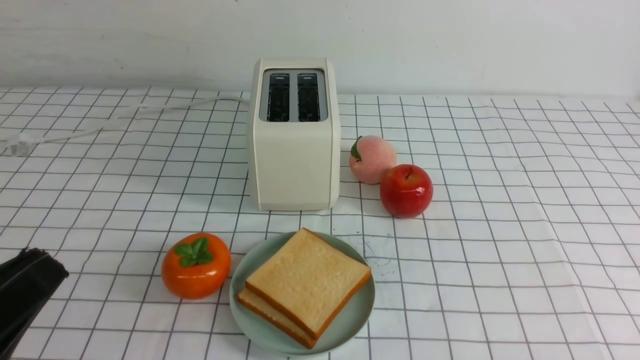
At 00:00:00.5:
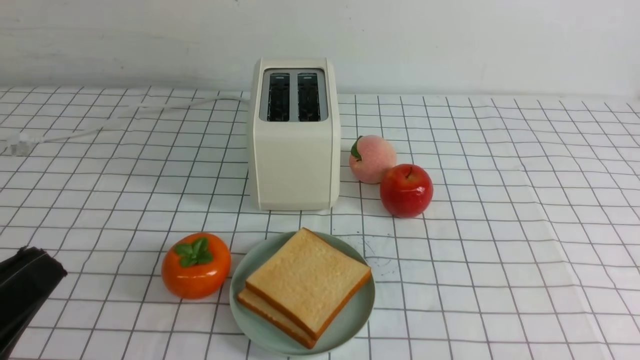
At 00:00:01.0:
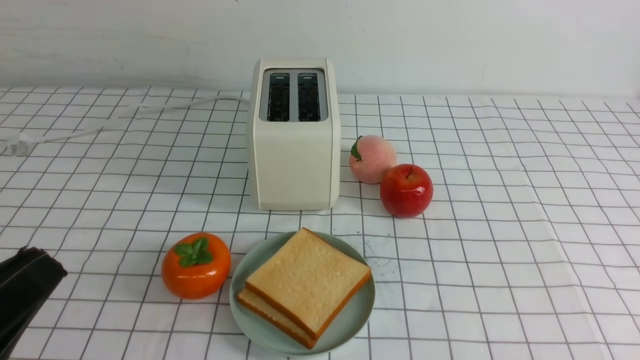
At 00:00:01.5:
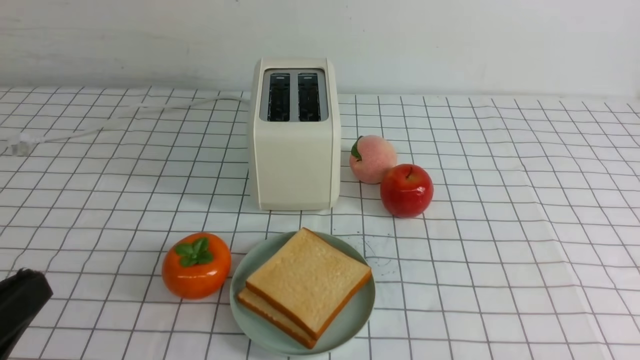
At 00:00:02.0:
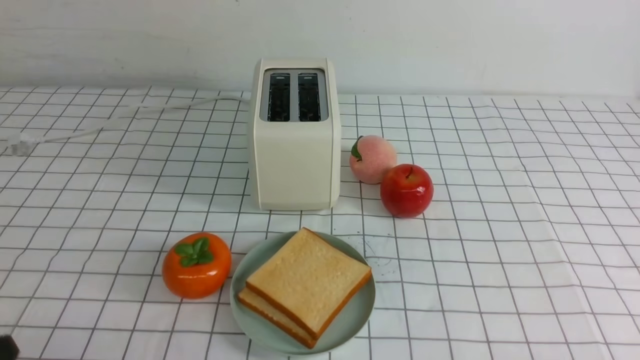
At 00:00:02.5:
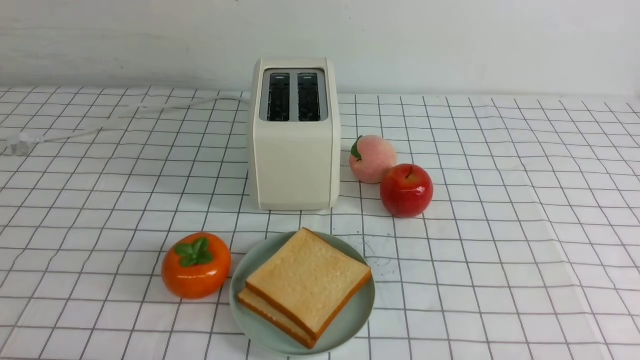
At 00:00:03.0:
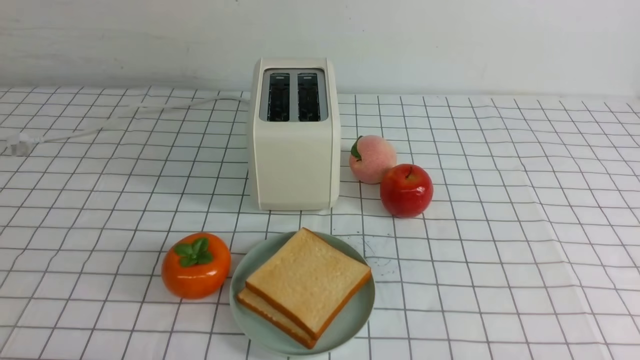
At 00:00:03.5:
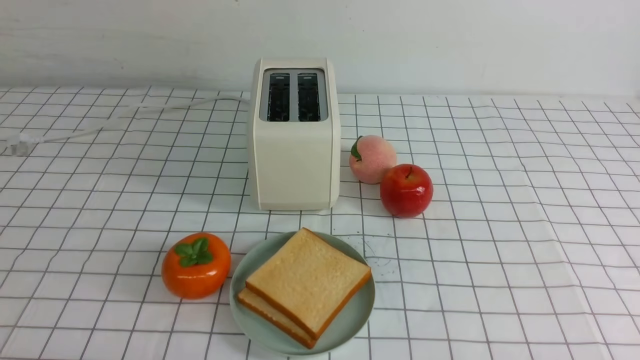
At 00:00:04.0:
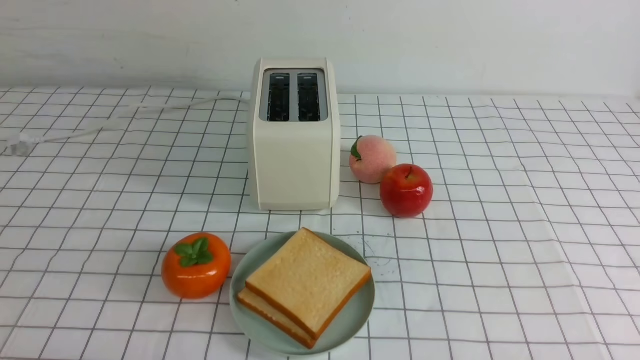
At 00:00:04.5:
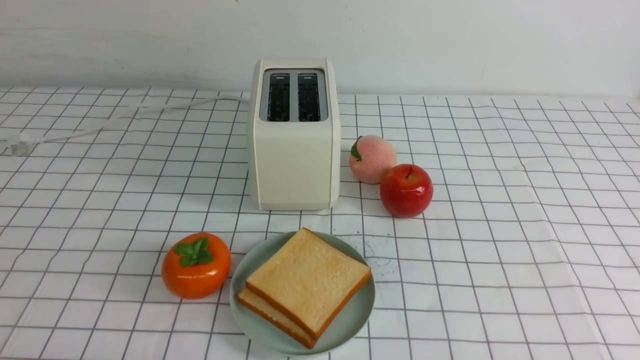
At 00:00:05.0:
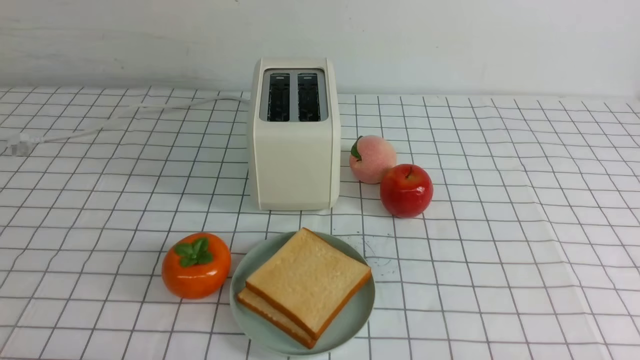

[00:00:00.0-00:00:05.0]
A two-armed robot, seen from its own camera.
Task of the whole recording: take toasted bread from bread machine on white checkered table place on plate.
00:00:00.0 to 00:00:02.5: The left gripper shifts roughly 10 cm downward.
00:00:02.5 to 00:00:05.0: The two grippers keep their place.
